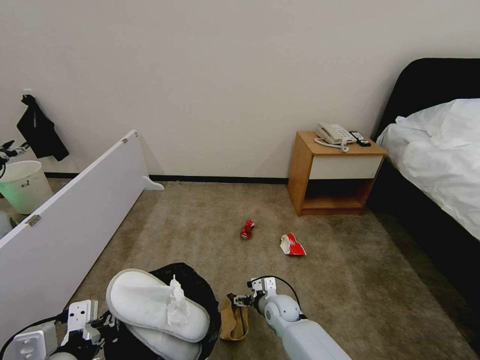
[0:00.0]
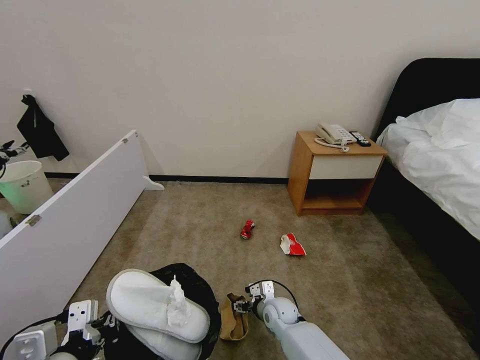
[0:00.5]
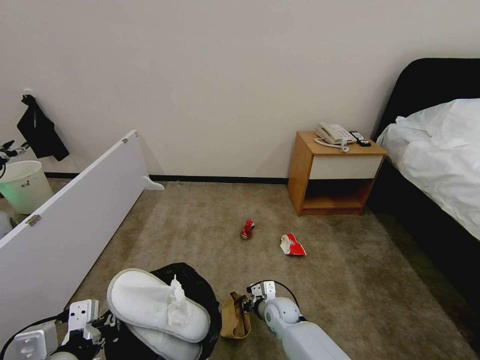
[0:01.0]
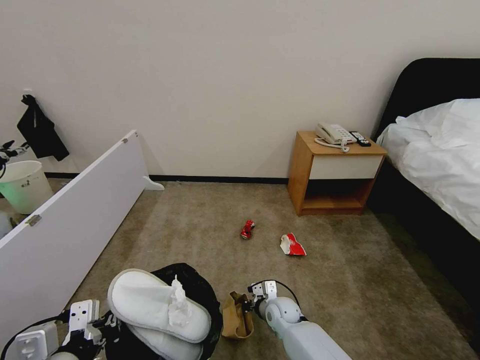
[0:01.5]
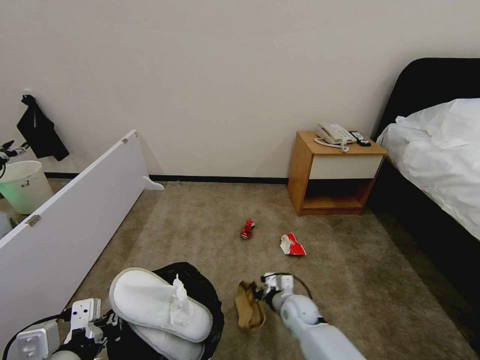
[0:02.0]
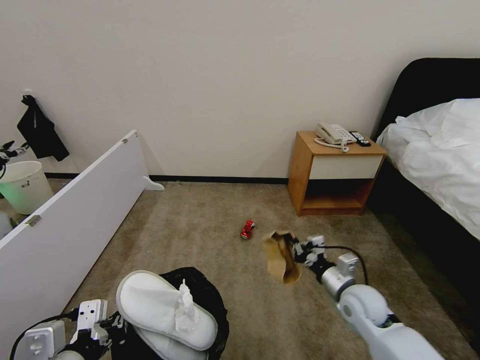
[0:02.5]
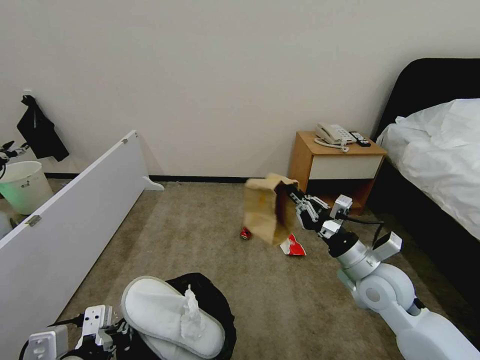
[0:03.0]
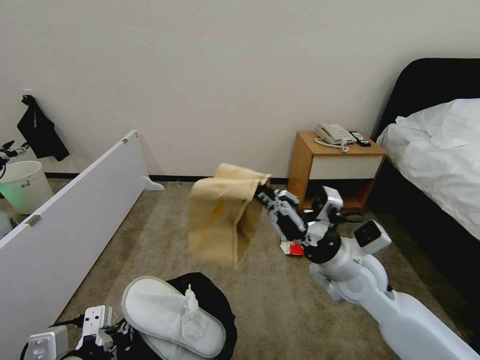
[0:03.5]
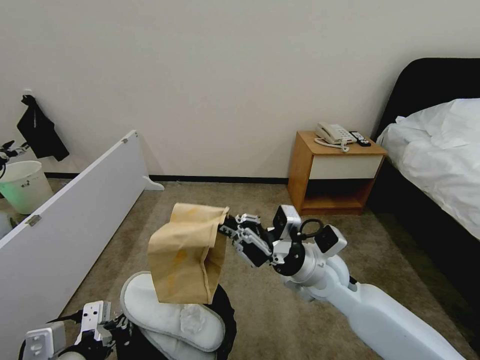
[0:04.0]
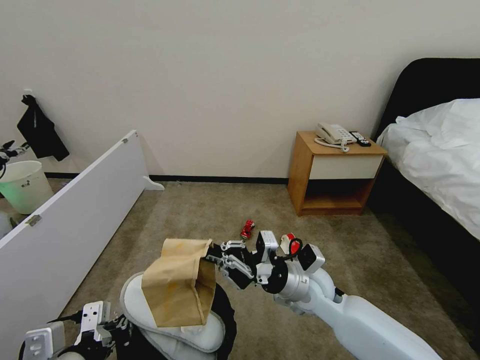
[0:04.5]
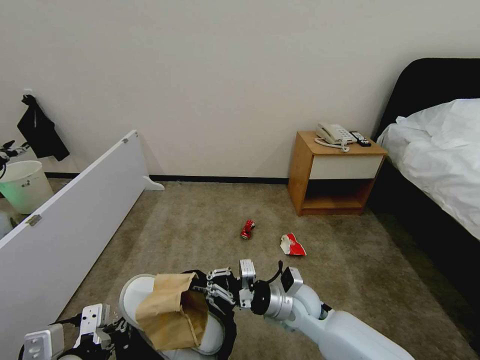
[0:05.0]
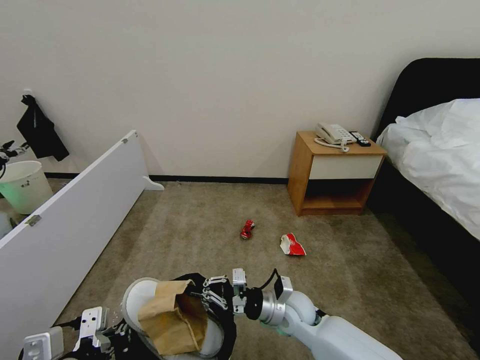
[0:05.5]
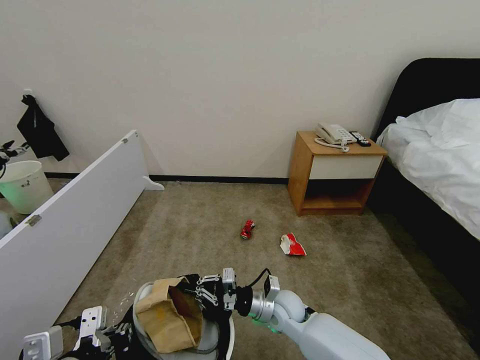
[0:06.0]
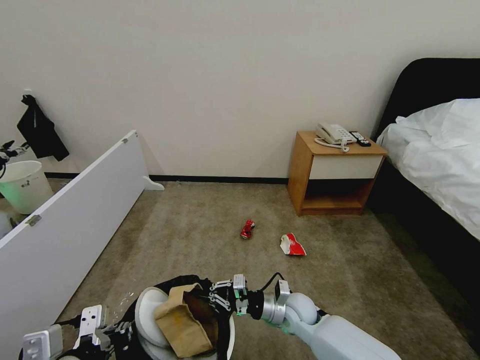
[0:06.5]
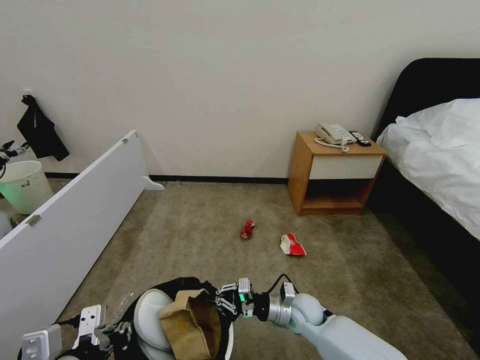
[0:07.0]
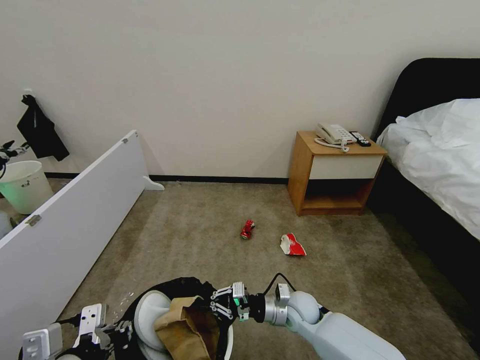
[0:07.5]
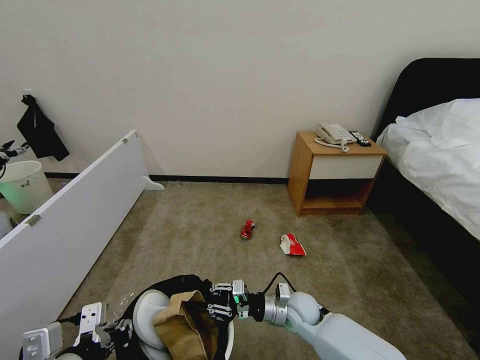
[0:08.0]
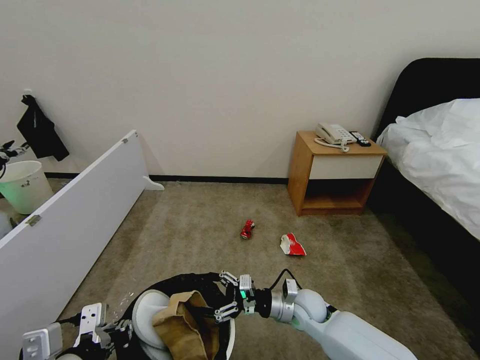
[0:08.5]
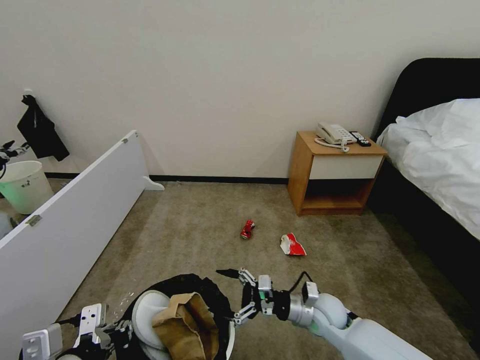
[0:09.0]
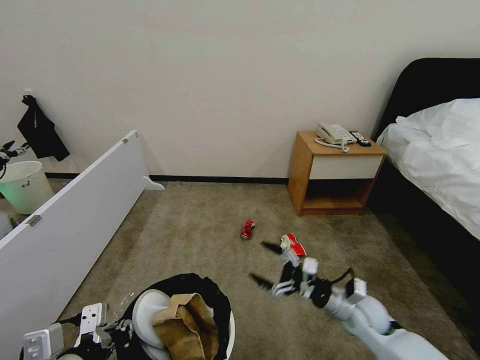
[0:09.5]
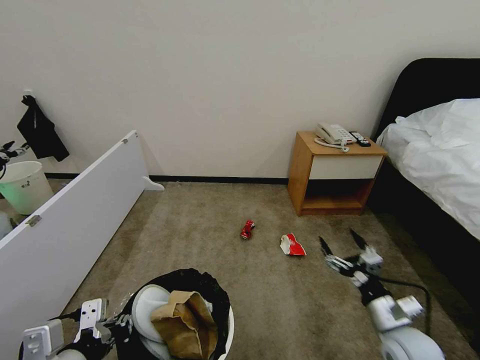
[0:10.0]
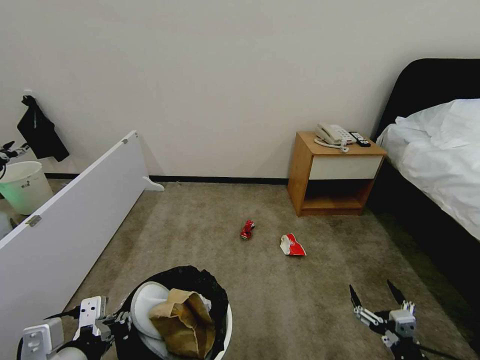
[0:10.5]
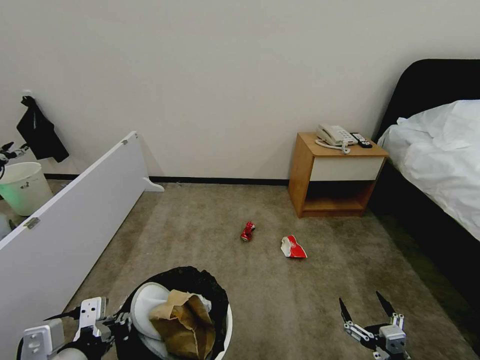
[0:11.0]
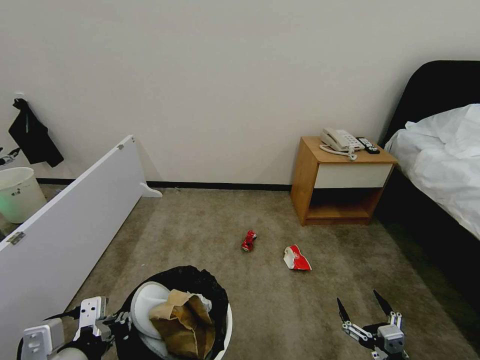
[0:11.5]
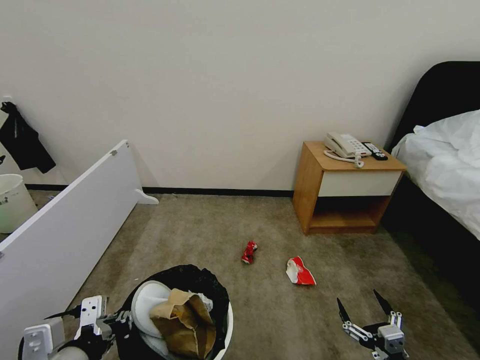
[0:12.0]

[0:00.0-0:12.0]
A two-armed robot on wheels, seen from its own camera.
Task of the whole recording: Pick up the trash bin, then pick up the garbage from the floor and place it into the trash bin.
0:00.0 to 0:02.0: The right gripper is displaced to the right by approximately 5 cm, and closes its fingers.
0:02.0 to 0:04.0: The right gripper travels upward by roughly 25 cm.
0:04.0 to 0:06.0: The right gripper is displaced downward by roughly 20 cm.
0:06.0 to 0:08.0: The grippers make only small movements.
0:08.0 to 0:10.0: The right gripper travels to the right and backward by approximately 25 cm, and opens its fingers.
0:10.0 to 0:12.0: The right gripper moves backward and downward, some 15 cm.

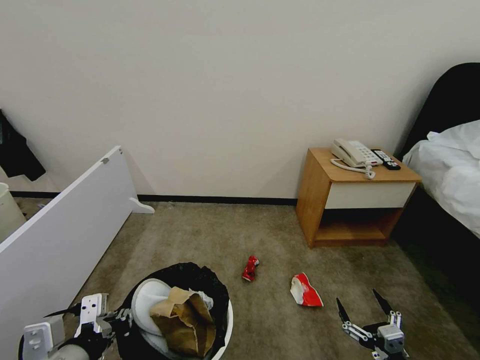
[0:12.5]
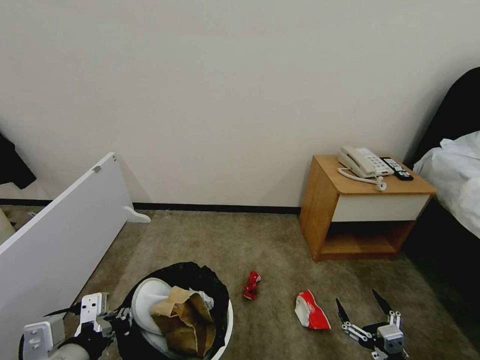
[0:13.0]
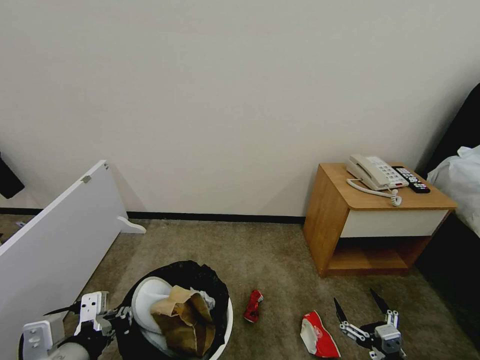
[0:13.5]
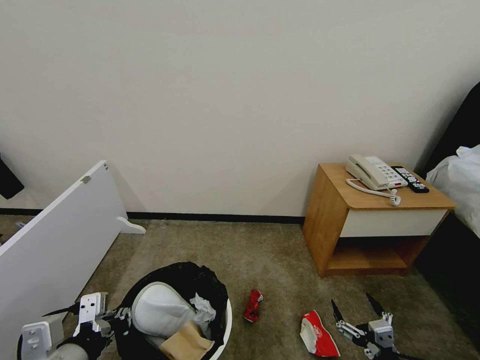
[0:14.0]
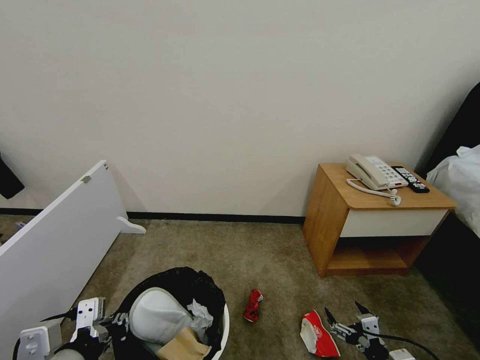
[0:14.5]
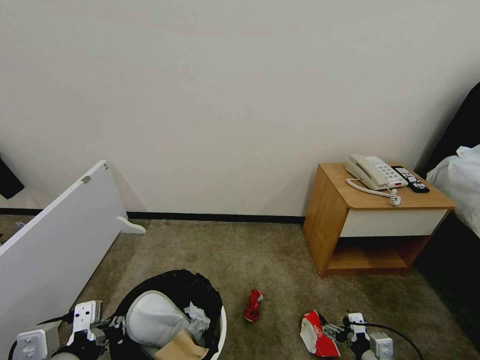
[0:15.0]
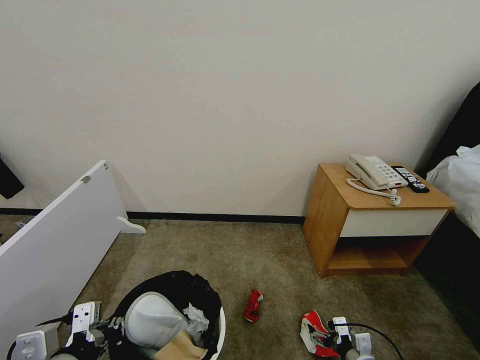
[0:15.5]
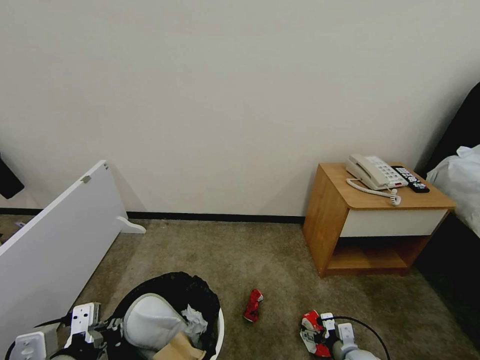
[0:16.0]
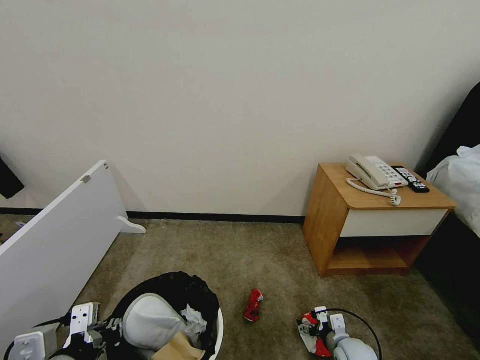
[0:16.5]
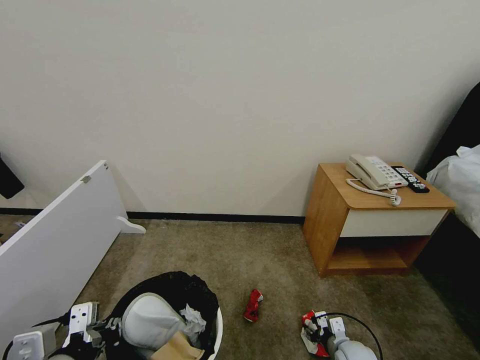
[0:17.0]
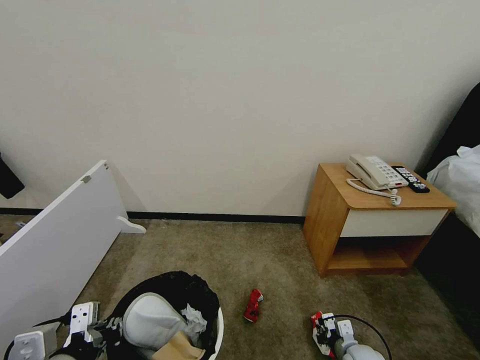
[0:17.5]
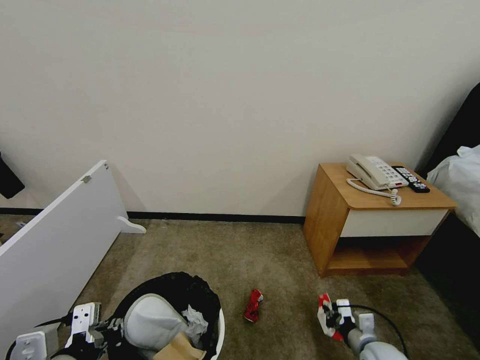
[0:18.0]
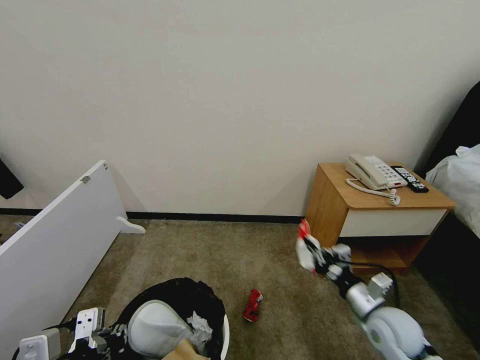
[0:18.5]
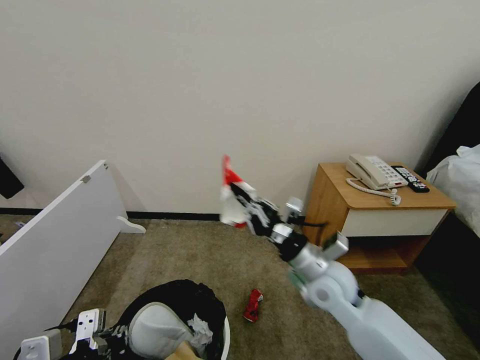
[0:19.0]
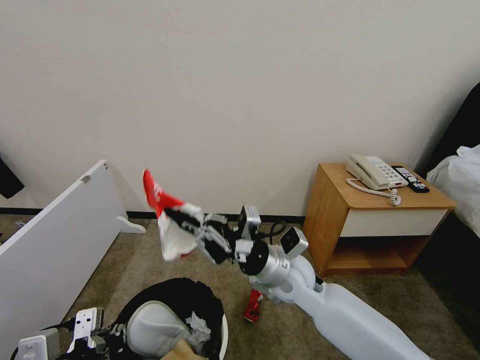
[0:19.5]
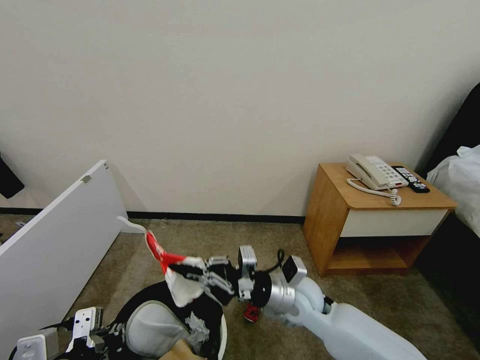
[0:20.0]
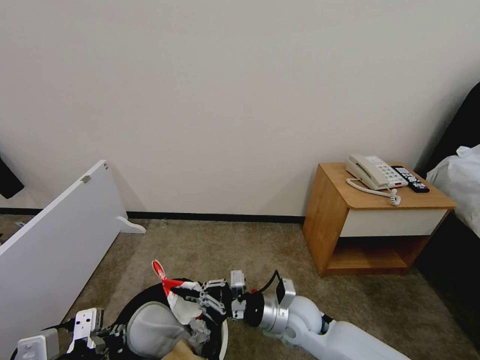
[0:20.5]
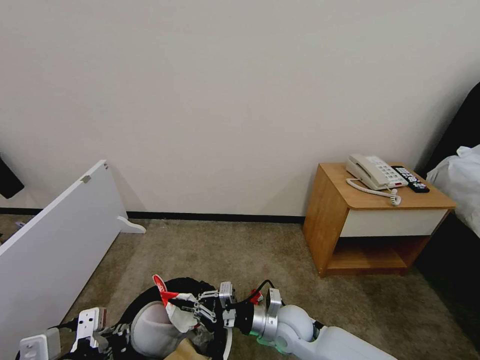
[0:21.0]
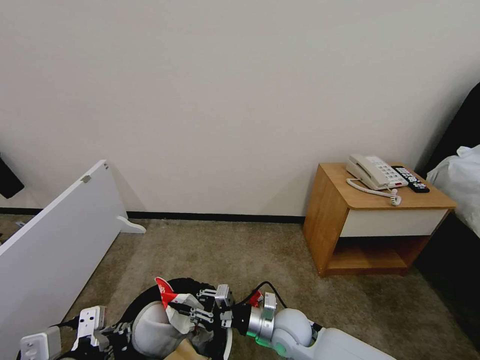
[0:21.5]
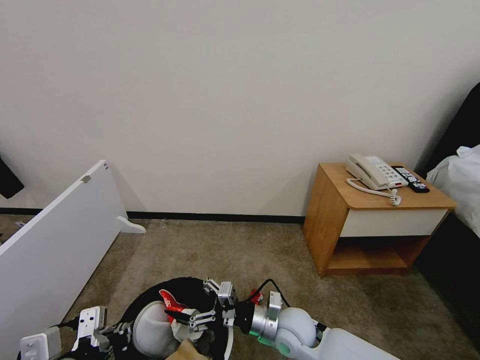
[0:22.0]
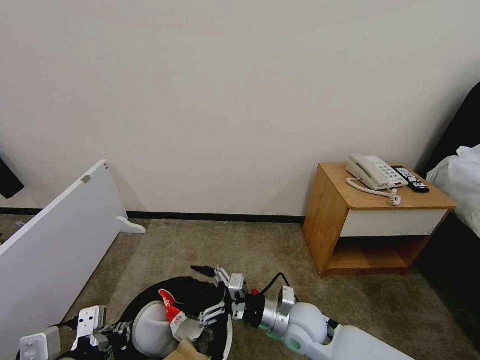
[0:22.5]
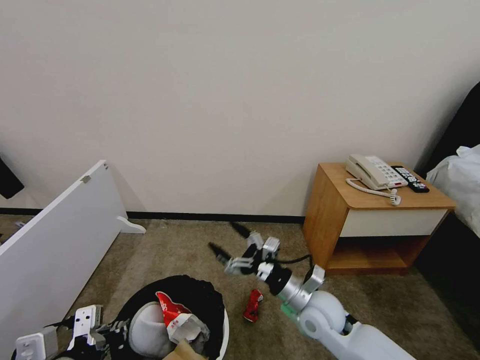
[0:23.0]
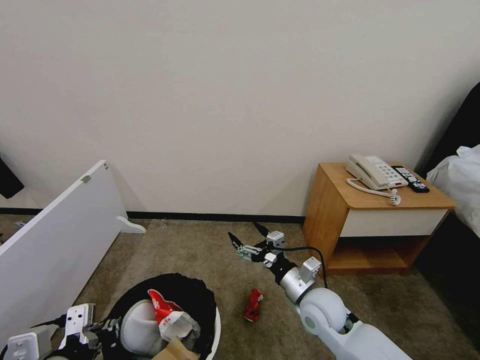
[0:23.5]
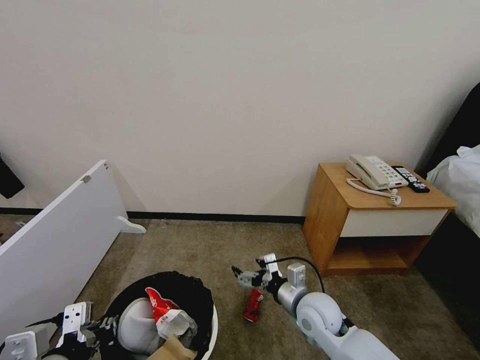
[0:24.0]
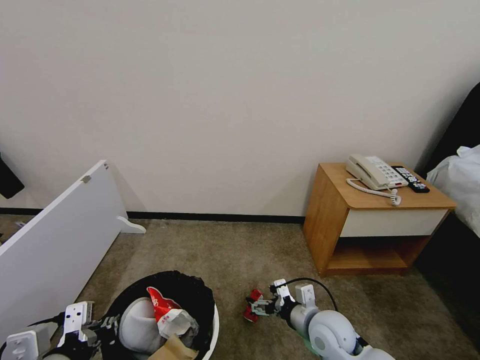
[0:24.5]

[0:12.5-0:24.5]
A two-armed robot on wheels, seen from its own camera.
Task of the whole recording: Pick up the trash bin, then pick up the garbage from the floor and place it into the trash bin.
0:14.5 to 0:16.5: The right gripper heads forward and downward, covering approximately 15 cm.
0:16.5 to 0:18.5: The right gripper shifts roughly 20 cm upward, and closes its fingers.
0:18.5 to 0:20.5: The right gripper heads to the left, covering about 20 cm.
0:20.5 to 0:22.5: The right gripper opens its fingers.
0:22.5 to 0:24.5: The right gripper is displaced to the right by about 5 cm.

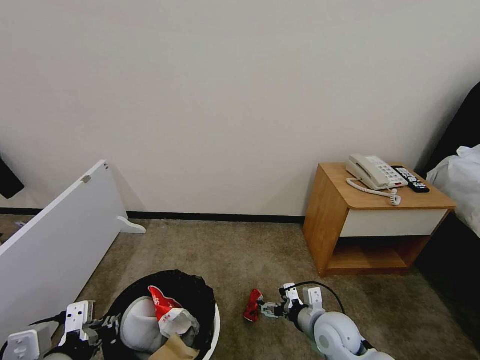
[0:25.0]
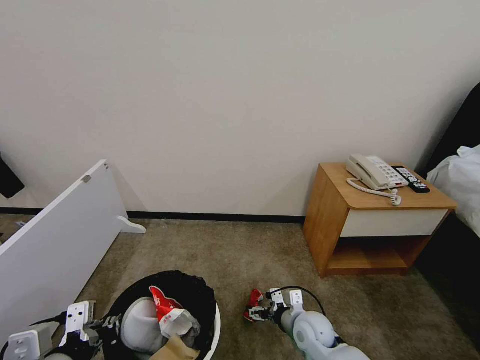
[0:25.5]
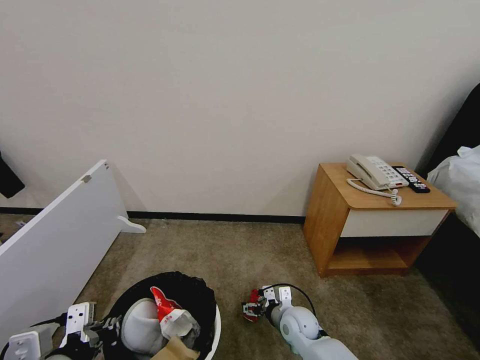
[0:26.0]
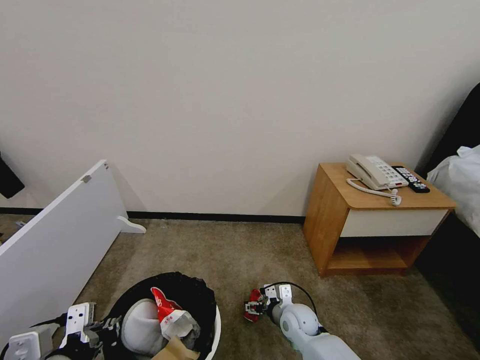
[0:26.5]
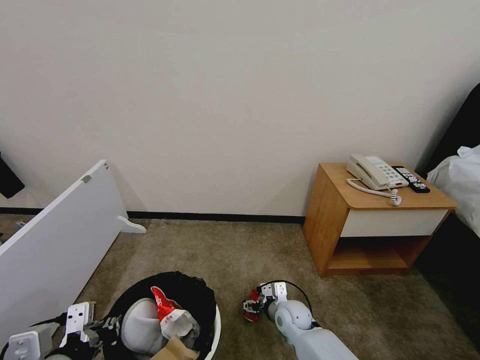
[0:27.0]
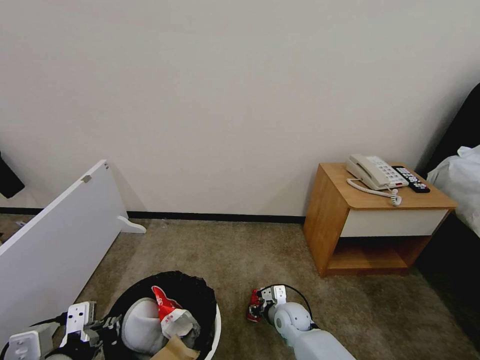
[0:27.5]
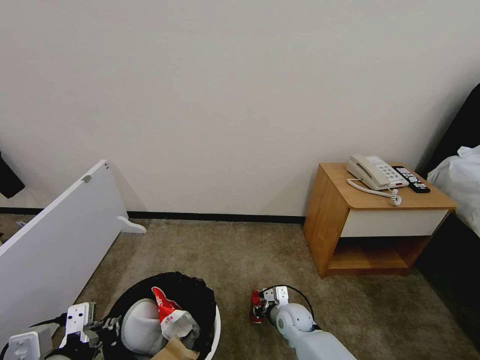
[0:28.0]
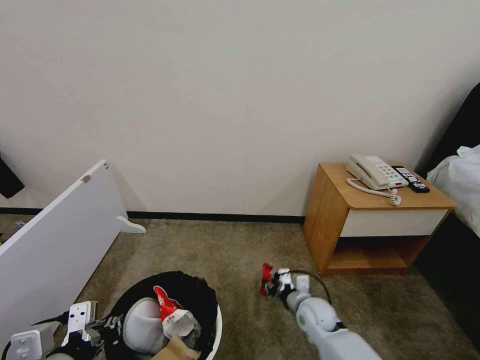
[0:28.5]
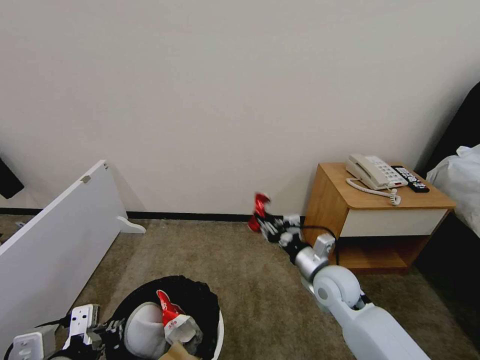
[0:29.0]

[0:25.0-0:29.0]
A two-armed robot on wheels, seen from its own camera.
Task of the whole recording: Pick up the trash bin, then pick up the garbage from the floor and place it into the trash bin.
0:25.0 to 0:27.0: The right gripper travels downward, forward and to the left by approximately 15 cm.
0:27.0 to 0:29.0: The right gripper travels upward by some 20 cm, and closes its fingers.
